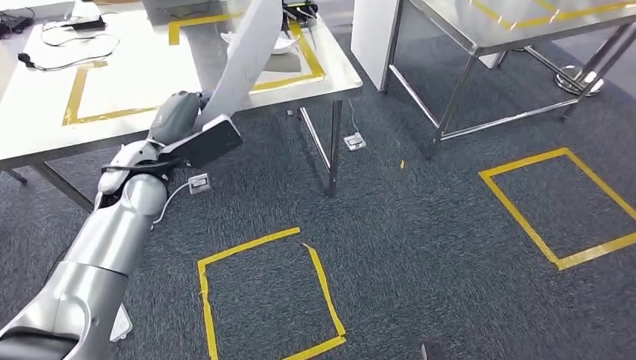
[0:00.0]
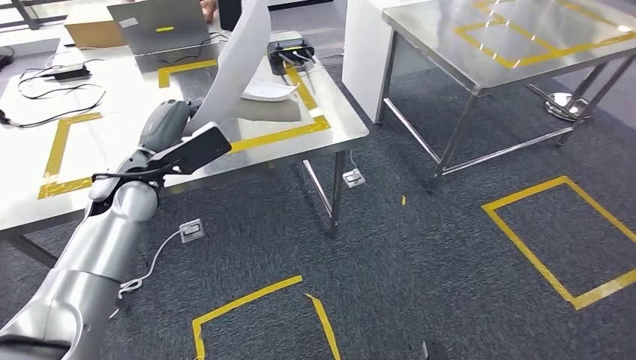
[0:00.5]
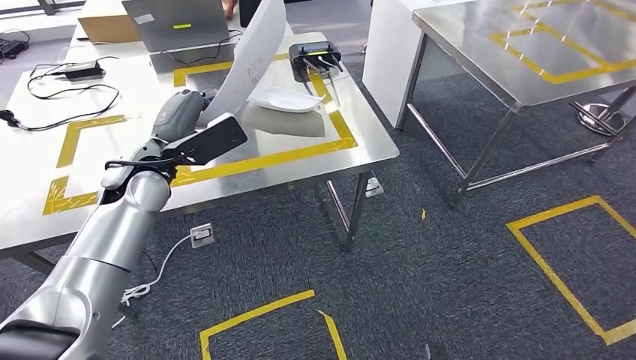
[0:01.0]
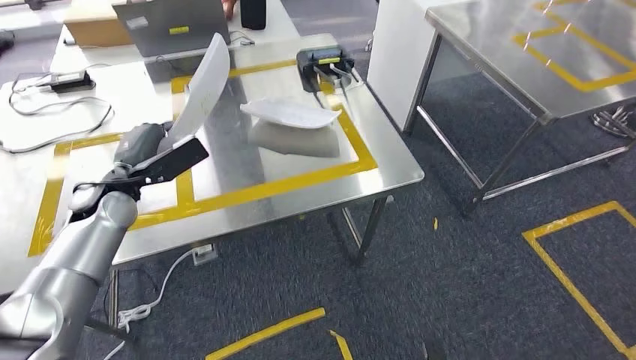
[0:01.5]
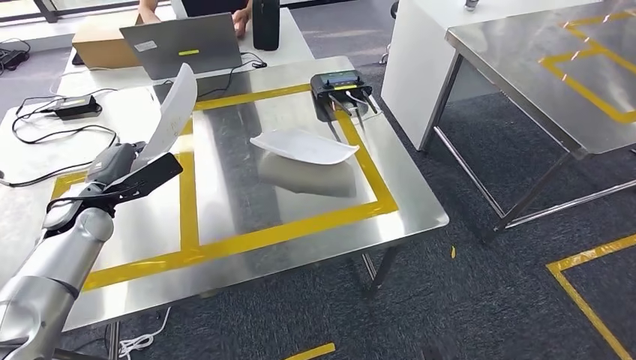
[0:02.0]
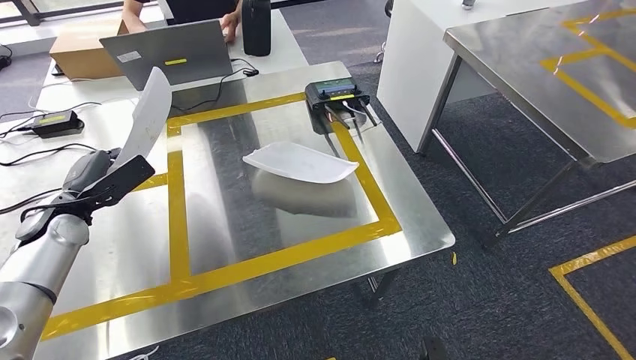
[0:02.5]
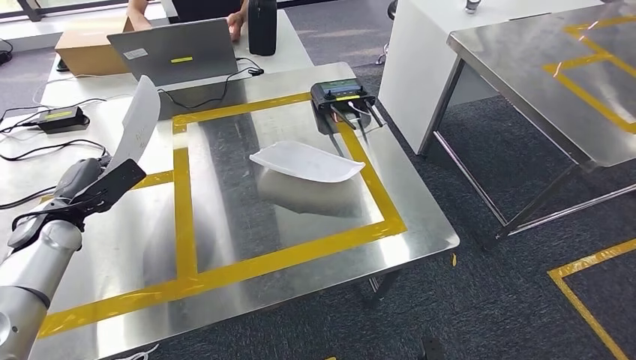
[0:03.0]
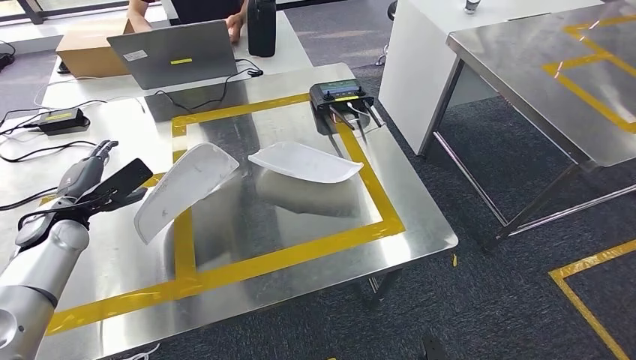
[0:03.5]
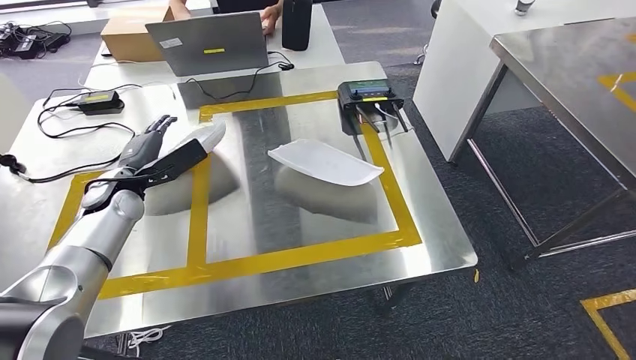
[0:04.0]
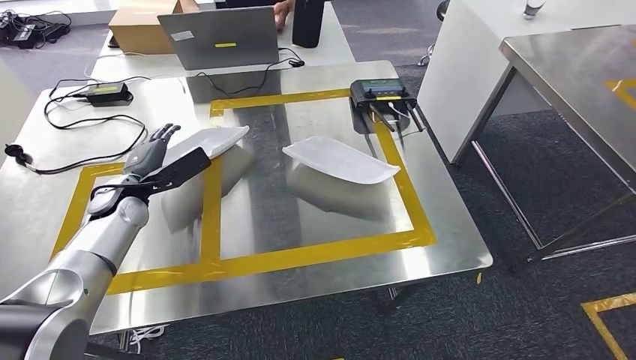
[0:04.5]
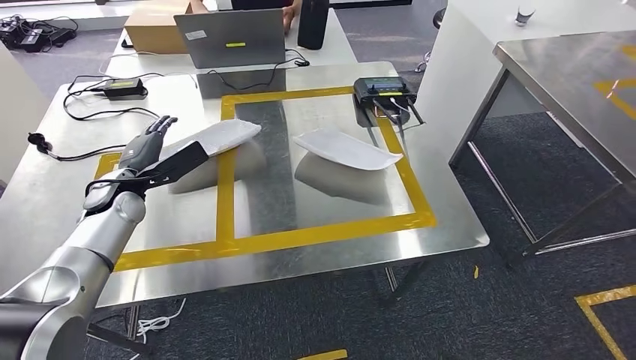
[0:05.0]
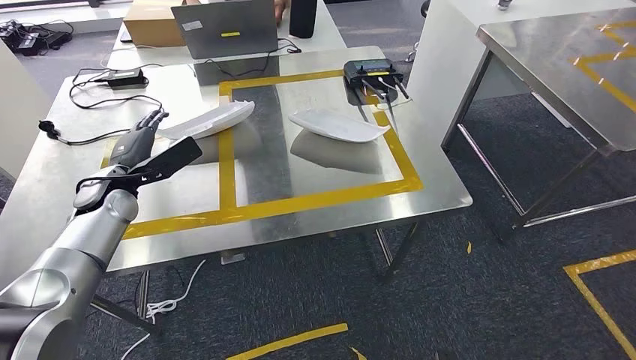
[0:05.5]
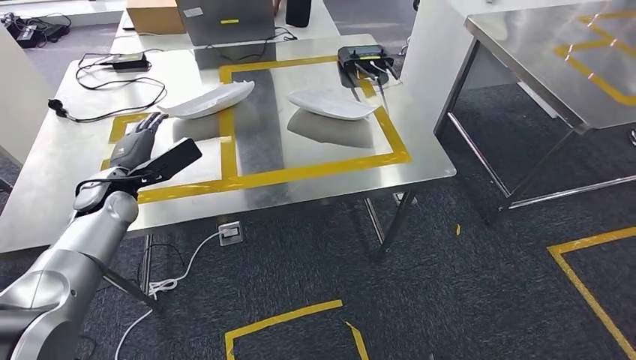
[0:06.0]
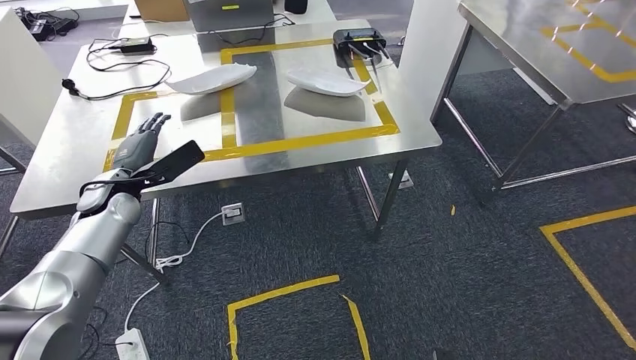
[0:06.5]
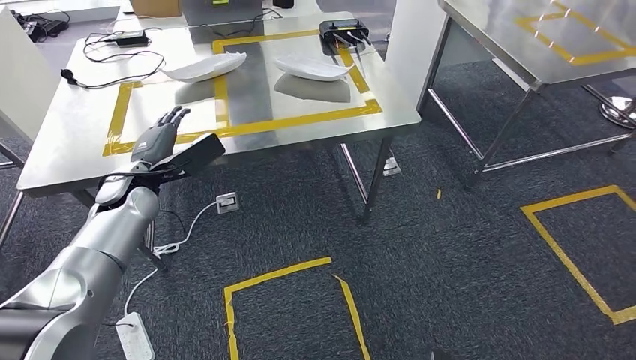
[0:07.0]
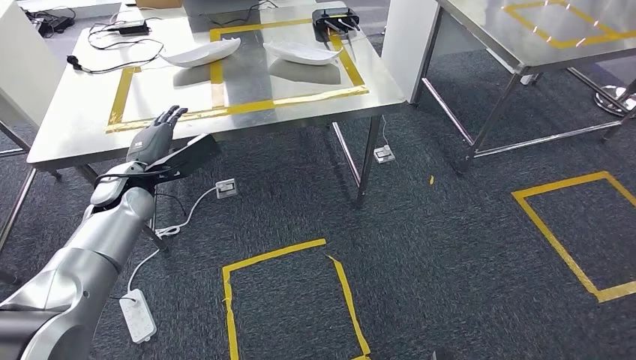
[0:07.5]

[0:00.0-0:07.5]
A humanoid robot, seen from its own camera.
Step, 0:02.0 to 0:05.0: Insert the small component into the corresponding slot on the workbench.
Step, 0:05.5 to 0:07.5: Move to the initial position of the workbench.
